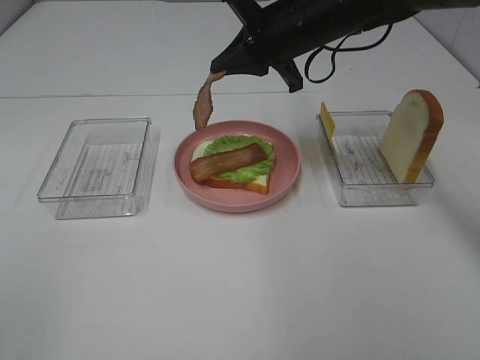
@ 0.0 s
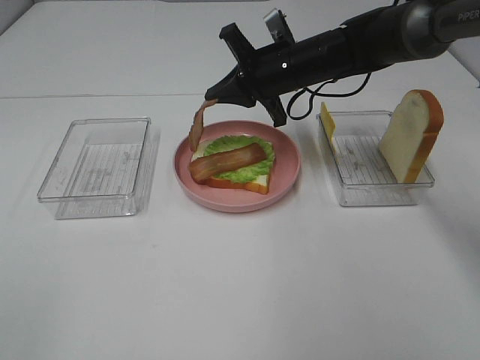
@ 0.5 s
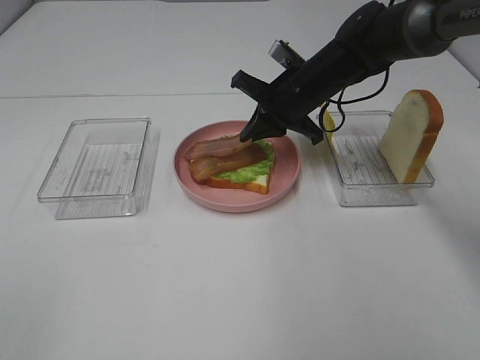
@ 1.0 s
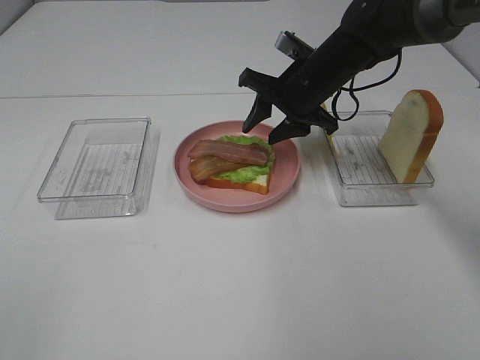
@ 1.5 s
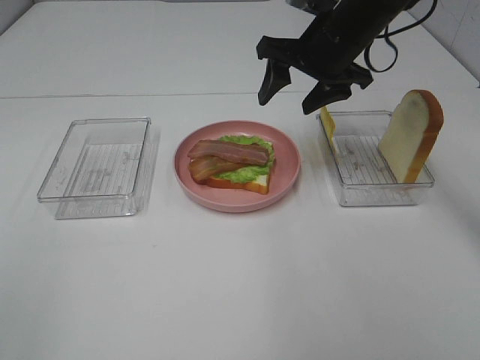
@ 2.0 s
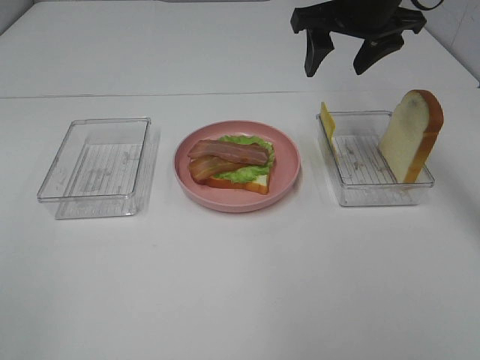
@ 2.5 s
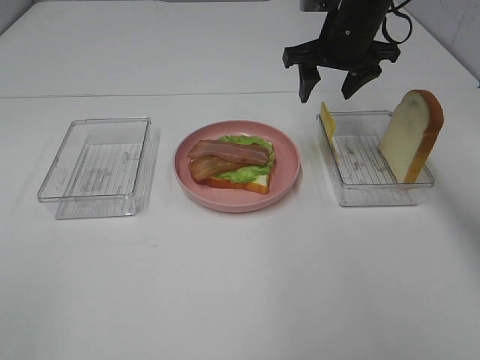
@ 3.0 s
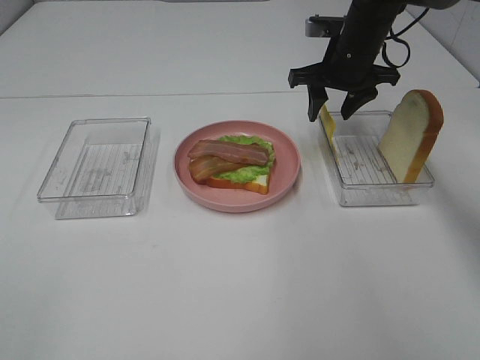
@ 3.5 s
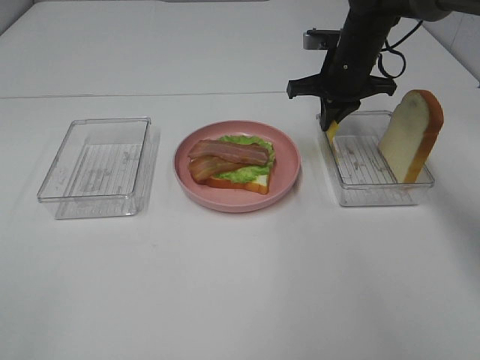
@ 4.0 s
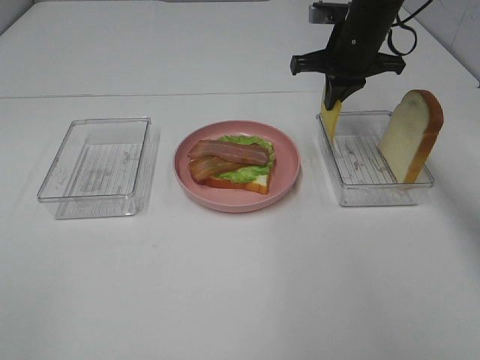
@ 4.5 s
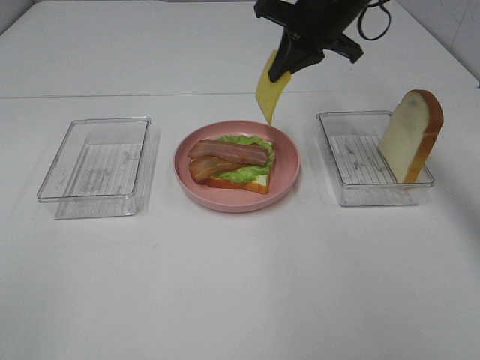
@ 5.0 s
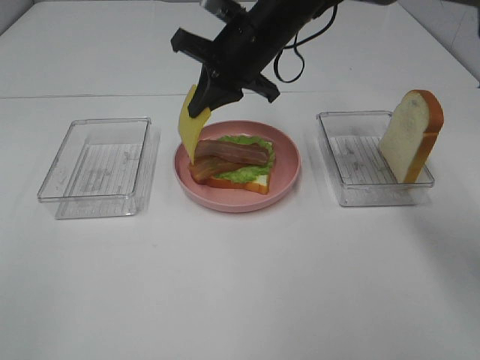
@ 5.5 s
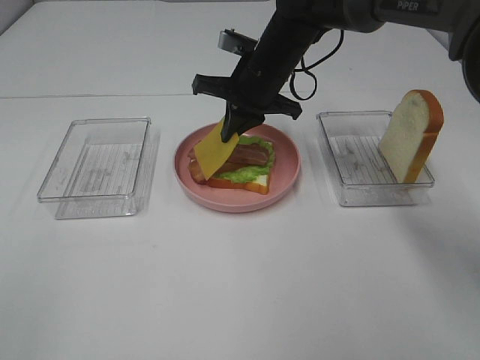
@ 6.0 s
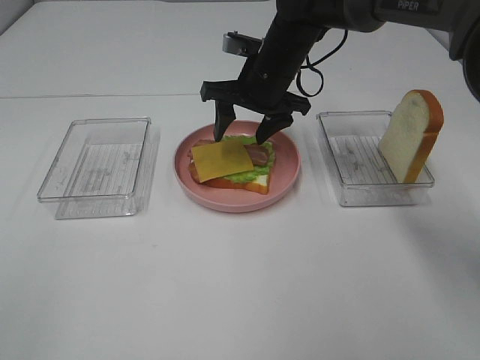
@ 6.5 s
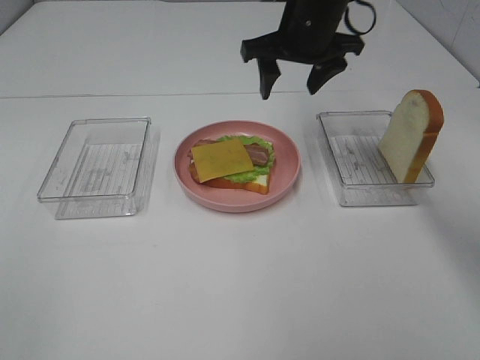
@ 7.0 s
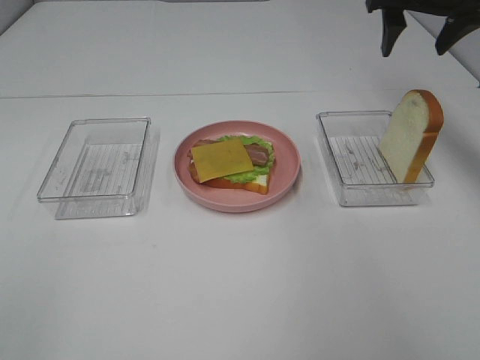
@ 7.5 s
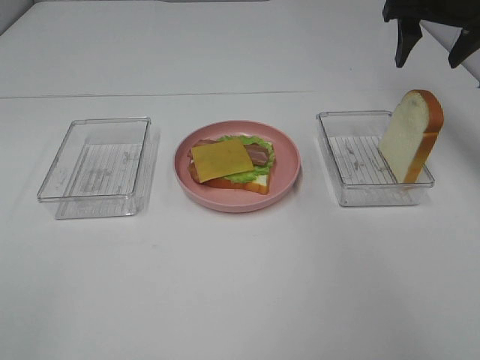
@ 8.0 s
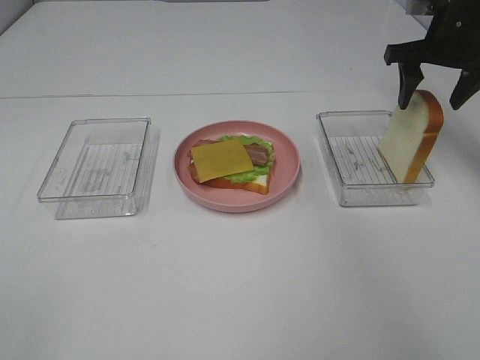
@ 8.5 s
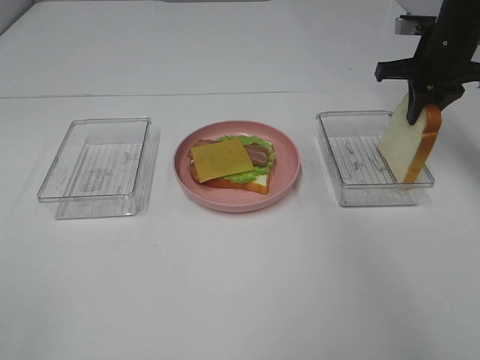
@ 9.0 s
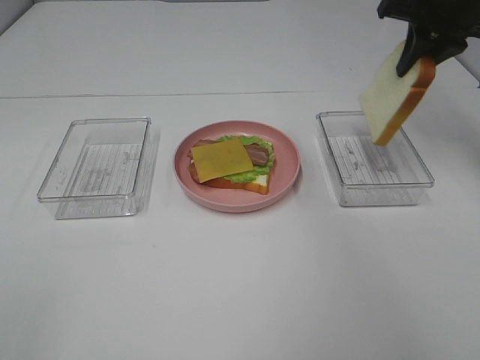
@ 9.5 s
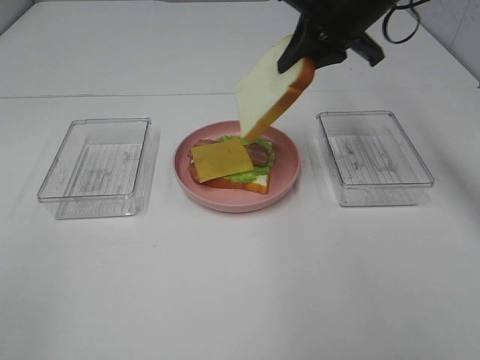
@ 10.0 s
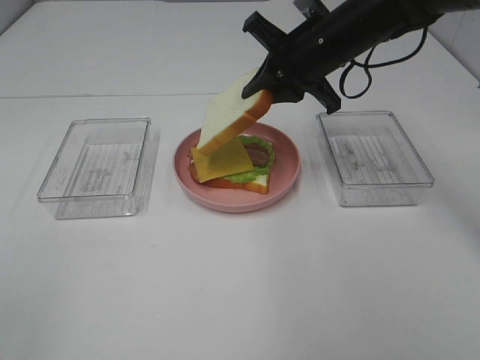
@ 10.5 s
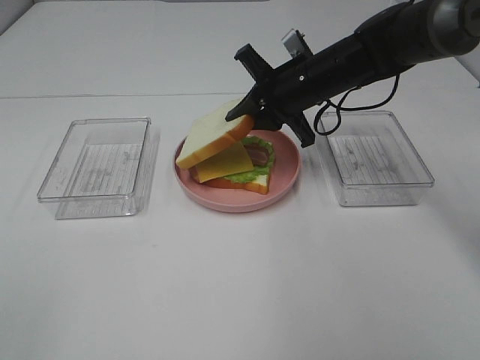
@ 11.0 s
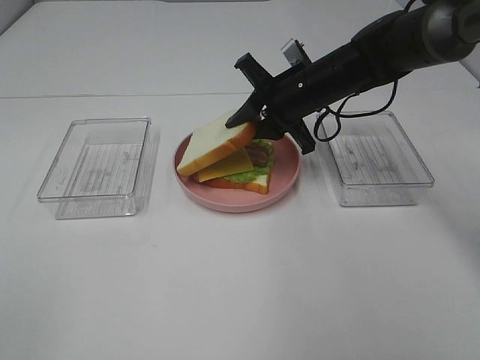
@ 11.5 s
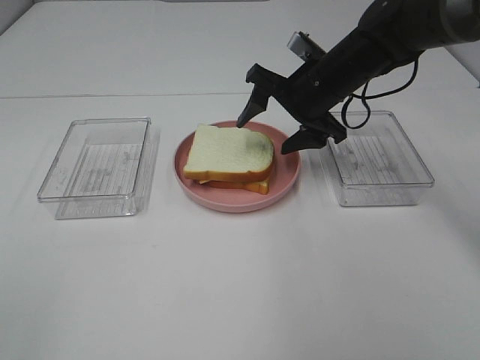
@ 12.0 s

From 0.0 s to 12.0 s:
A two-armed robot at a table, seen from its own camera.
Task of the whole recording: Make sandwiches.
Step, from 2.0 s to 4.0 s: Right hand:grab the cheese slice.
Step, from 4.5 s to 6.5 s: Right hand:place the cheese slice on top of the bacon.
Step, from 7.0 s to 9.0 s: Right hand:grab the bread slice.
From 0.0 s to 2.0 s: The right gripper goes downward and returns, some 10 cm each way, and opens up.
From 2.0 s to 4.0 s: The right gripper shifts approximately 10 cm downward and forward, and closes.
From 4.0 s to 6.0 s: The right gripper heads to the left, covering approximately 10 cm.
From 6.0 s to 8.0 s: The right gripper heads to the right and upward, covering approximately 25 cm, and opens up.
From 8.0 s to 10.0 s: The right gripper heads to the left, covering roughly 10 cm, and closes its fingers.
From 10.0 s to 12.0 s: The right gripper travels downward by some 10 cm, and opens.

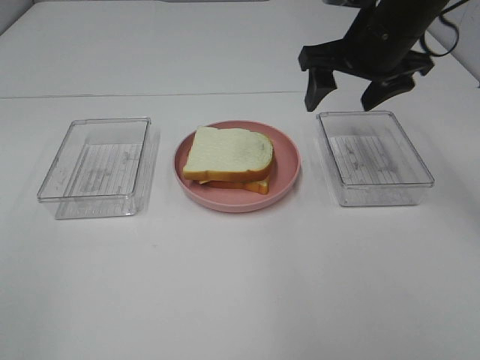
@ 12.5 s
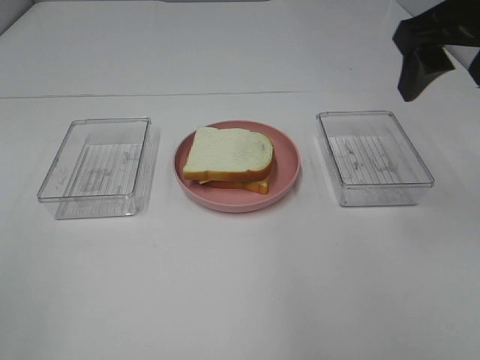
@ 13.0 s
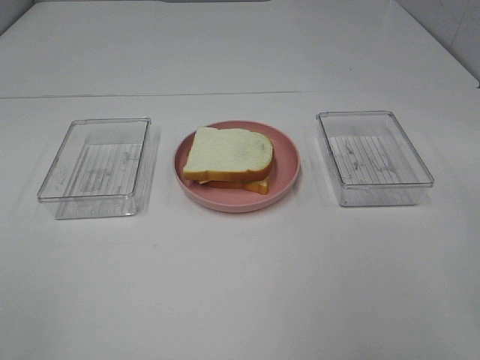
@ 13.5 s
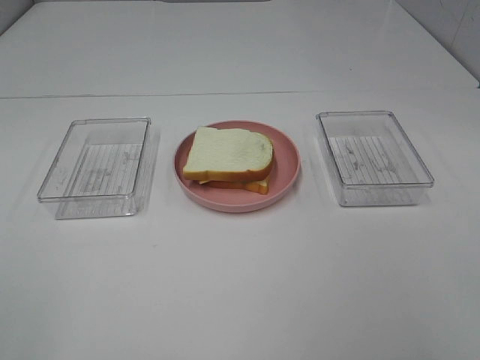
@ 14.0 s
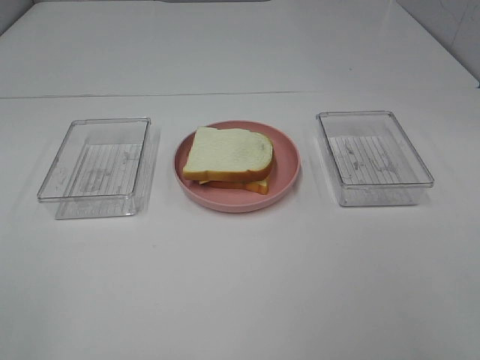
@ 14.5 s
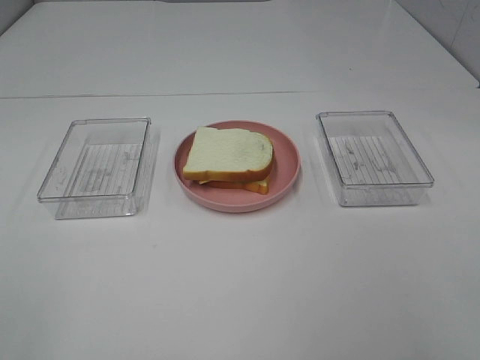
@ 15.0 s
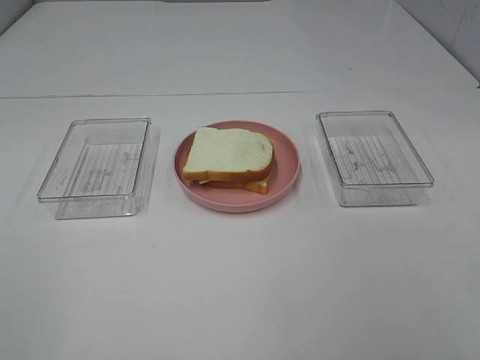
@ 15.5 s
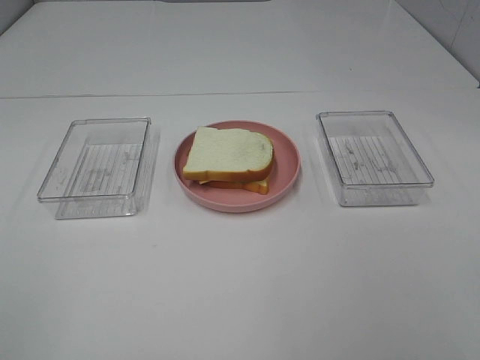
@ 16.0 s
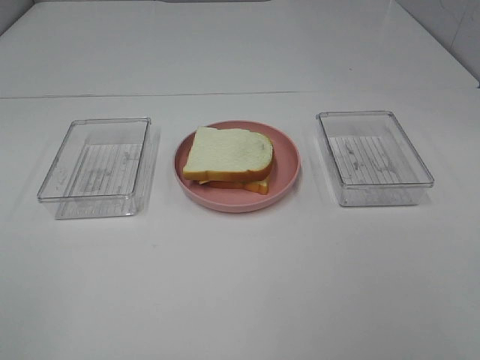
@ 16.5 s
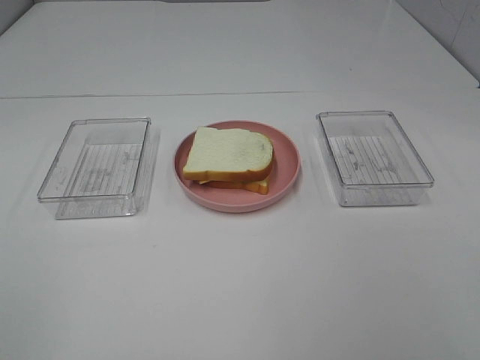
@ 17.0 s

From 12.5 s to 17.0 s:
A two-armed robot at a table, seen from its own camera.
Task of the whole recording: Make sandwiches.
From 12.5 s to 14.5 s: The right gripper moves backward, approximately 35 cm.

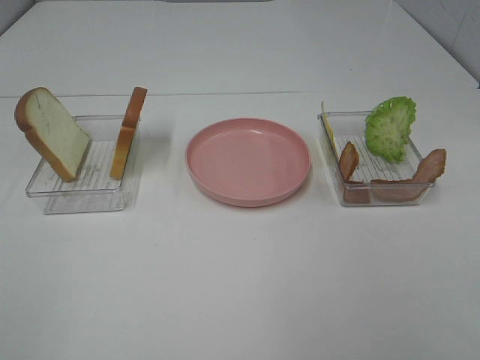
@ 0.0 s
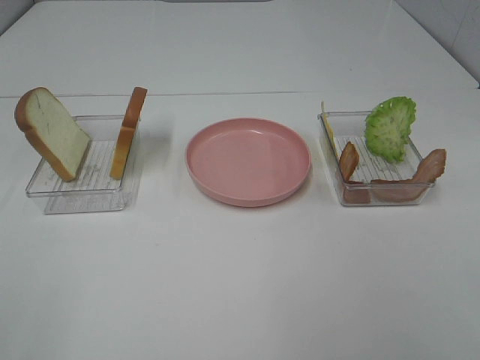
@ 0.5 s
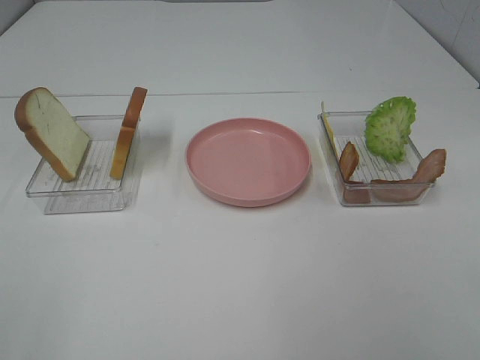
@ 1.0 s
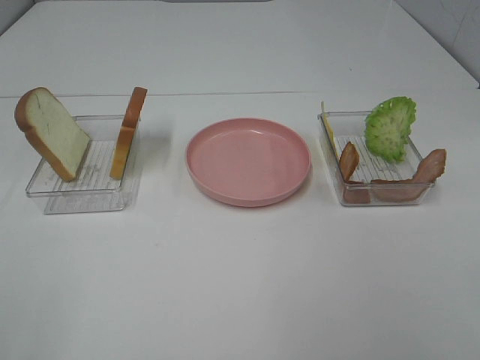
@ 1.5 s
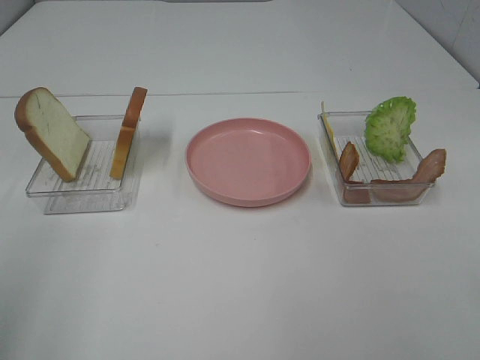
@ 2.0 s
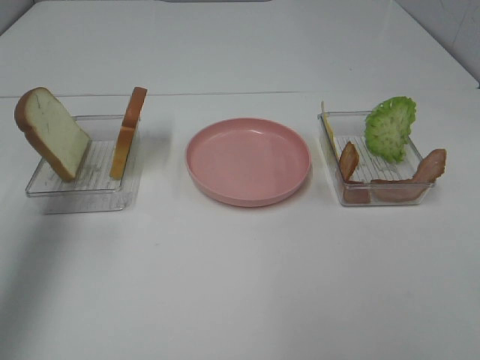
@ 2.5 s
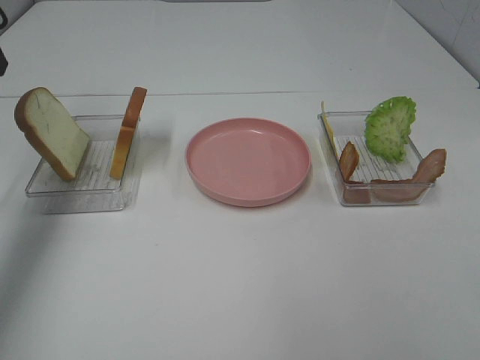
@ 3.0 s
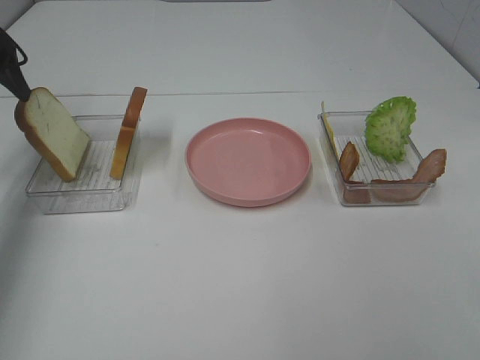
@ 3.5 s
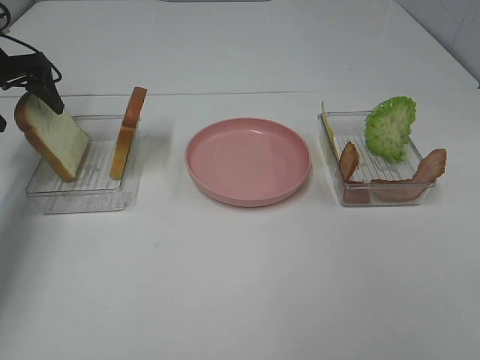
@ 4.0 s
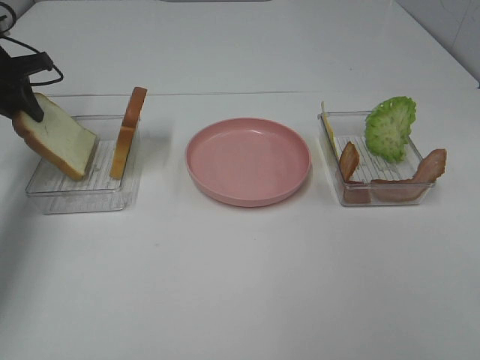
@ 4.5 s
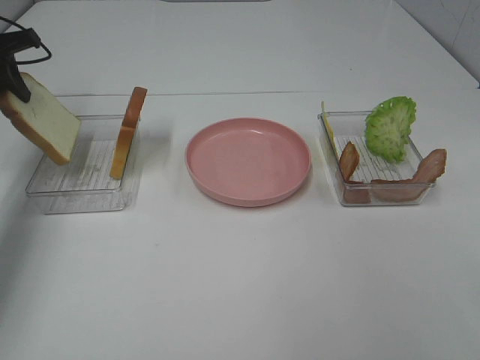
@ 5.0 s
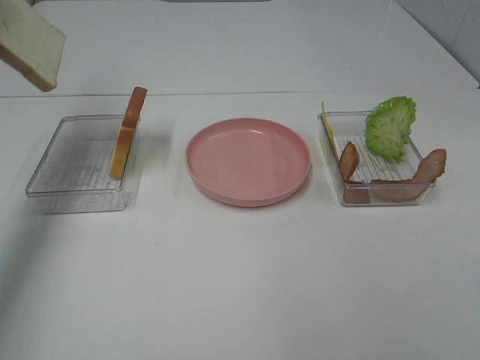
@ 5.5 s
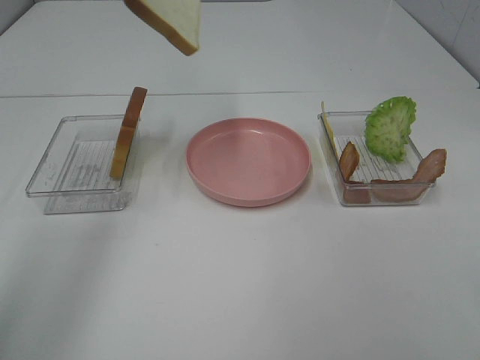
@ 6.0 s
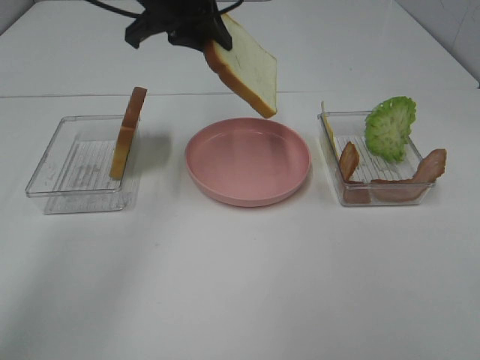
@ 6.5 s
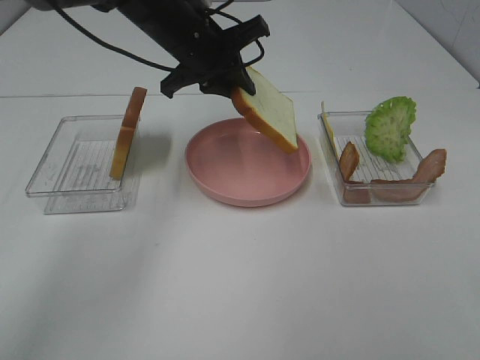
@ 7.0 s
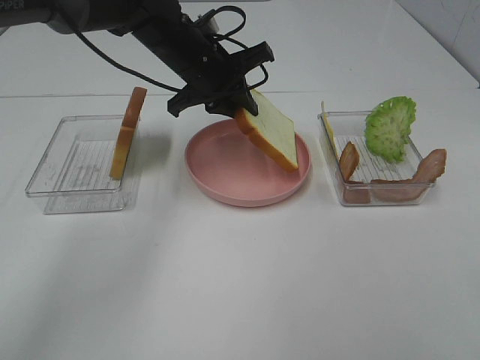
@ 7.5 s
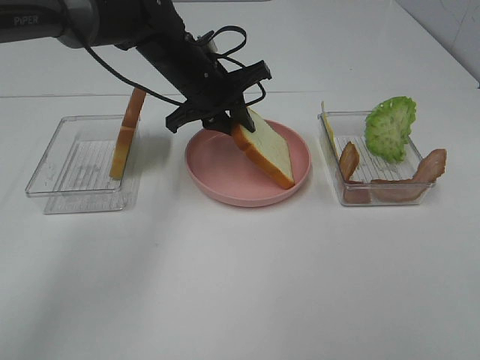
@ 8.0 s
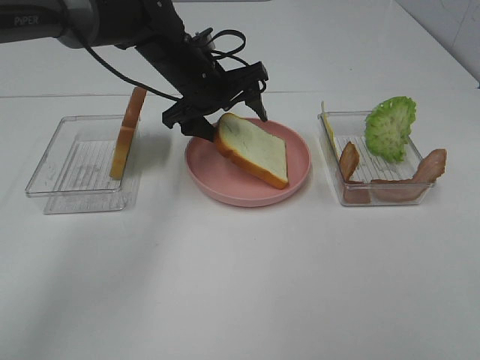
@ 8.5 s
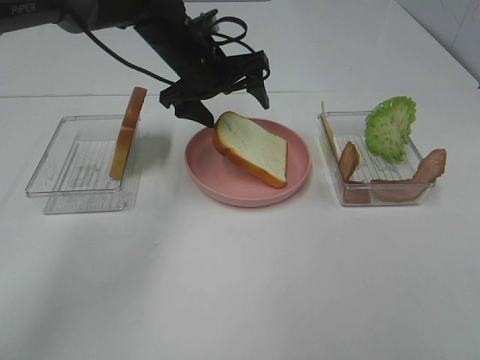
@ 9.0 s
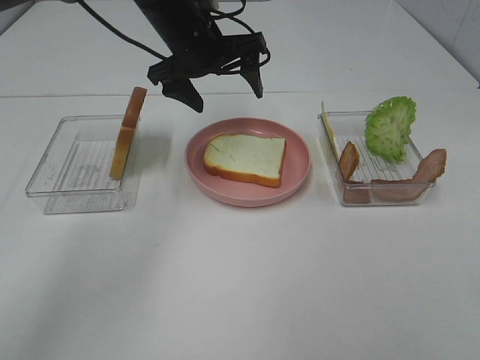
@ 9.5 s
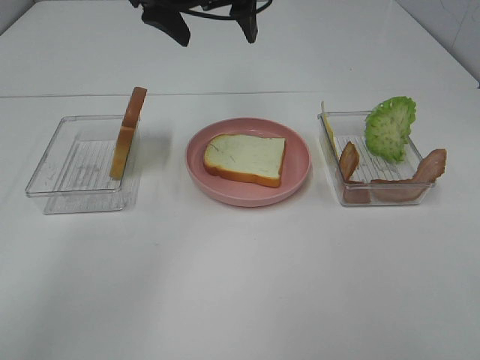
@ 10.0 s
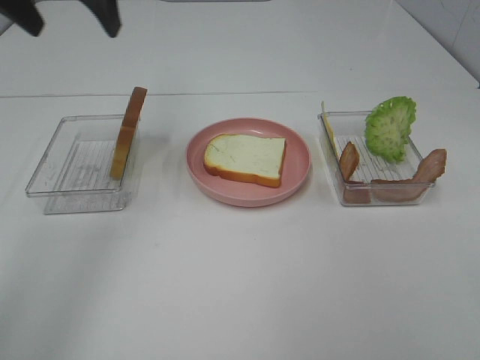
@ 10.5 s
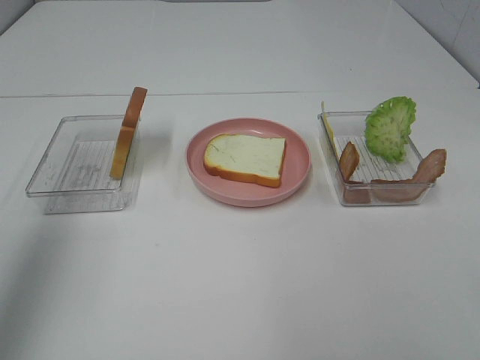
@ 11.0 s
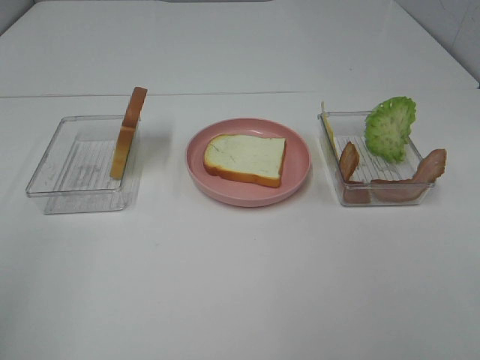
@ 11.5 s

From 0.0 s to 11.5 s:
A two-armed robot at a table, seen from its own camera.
Task of the whole recording: Make sandwiches.
Step, from 0.0 s to 4.5 s: Left hand:grab the bread slice.
Step, from 5.0 s to 9.0 s: Left hand:place the bread slice on the plate.
From 2.0 s to 4.0 s: The left gripper travels forward and downward by roughly 40 cm.
From 4.0 s to 6.0 s: The left gripper goes some 25 cm upward and to the right, and closes its fingers.
From 6.0 s to 7.5 s: The left gripper shifts roughly 20 cm downward and to the right.
From 7.5 s to 9.5 s: The left gripper opens.
From 9.5 s to 11.5 s: The left gripper shifts roughly 50 cm backward and to the left.
